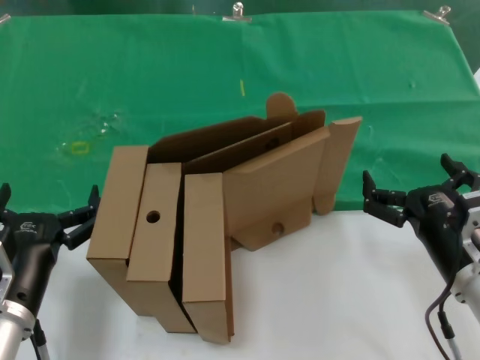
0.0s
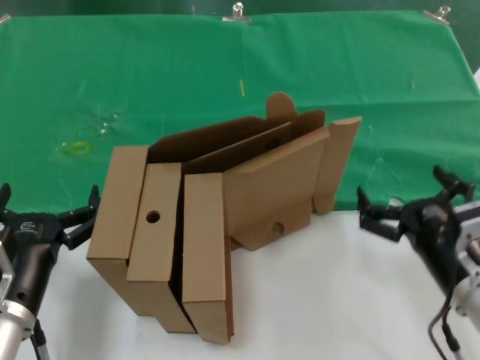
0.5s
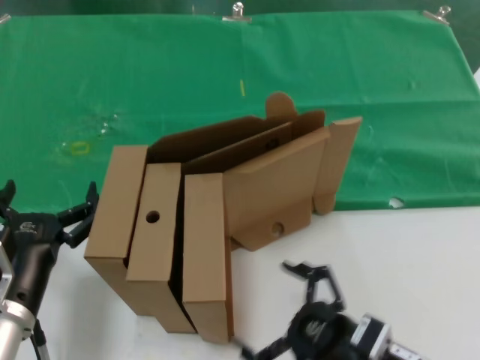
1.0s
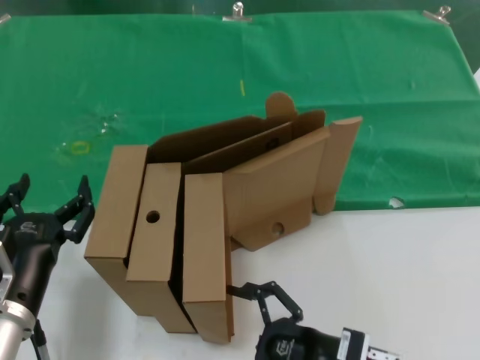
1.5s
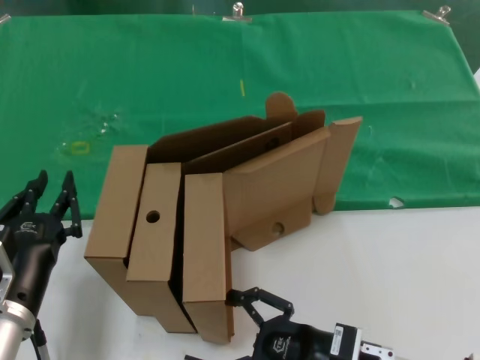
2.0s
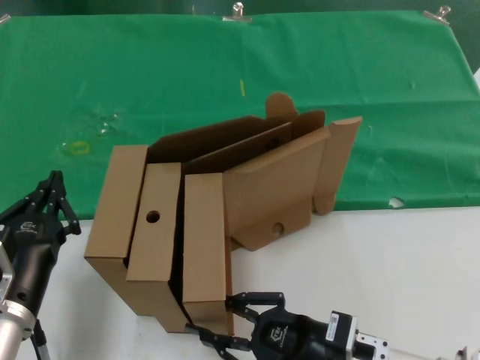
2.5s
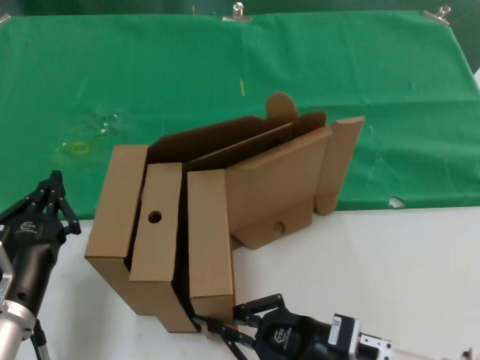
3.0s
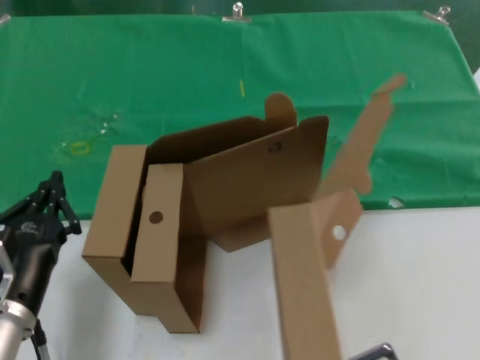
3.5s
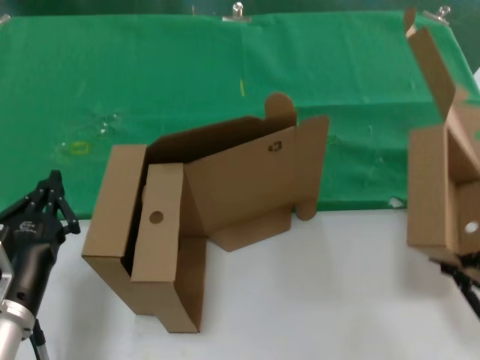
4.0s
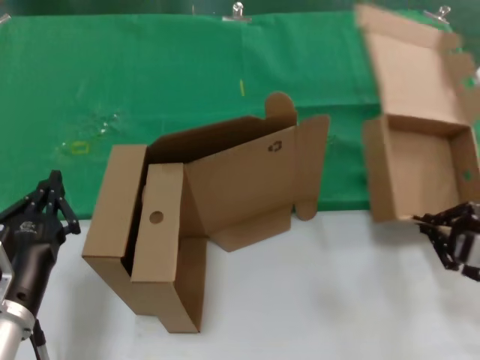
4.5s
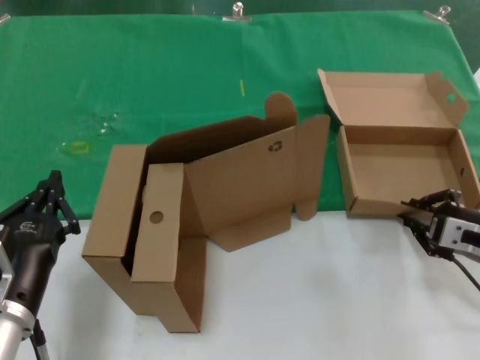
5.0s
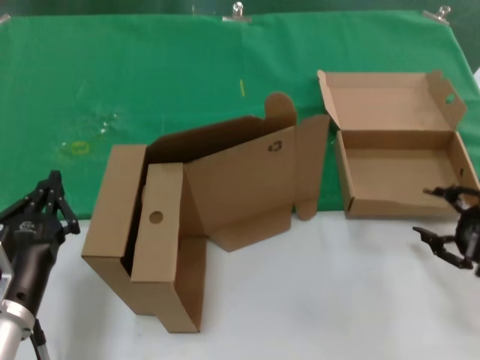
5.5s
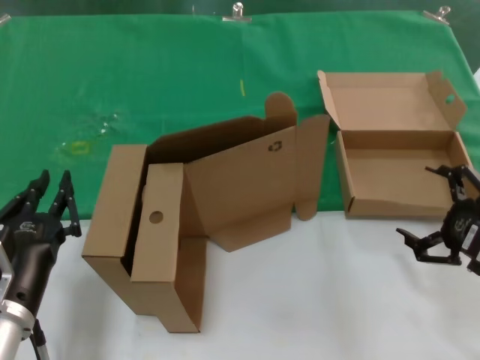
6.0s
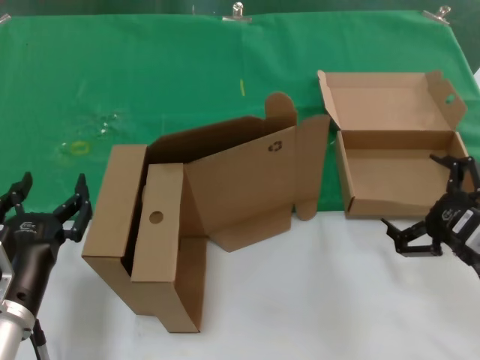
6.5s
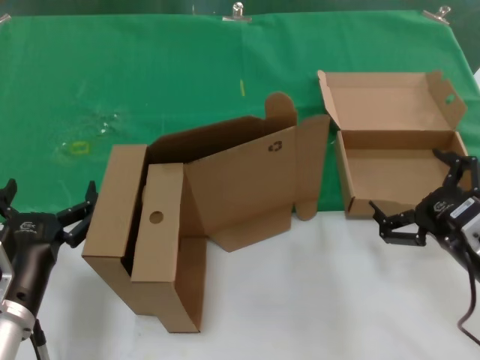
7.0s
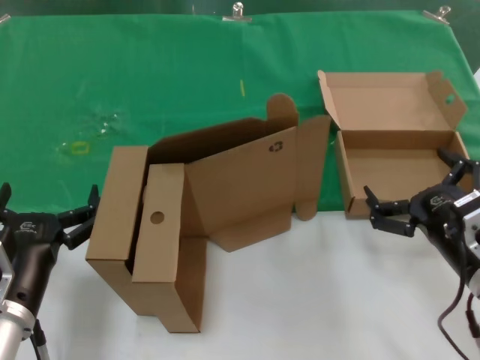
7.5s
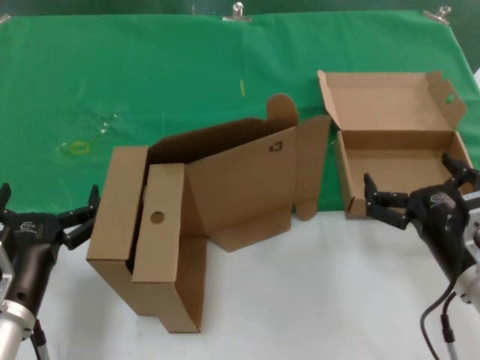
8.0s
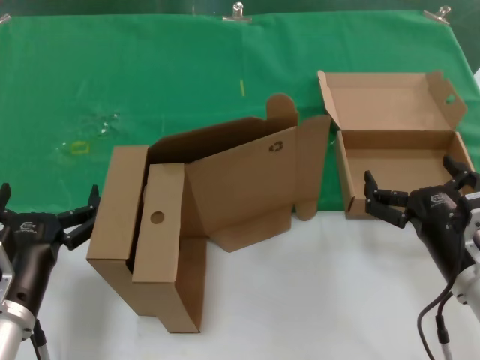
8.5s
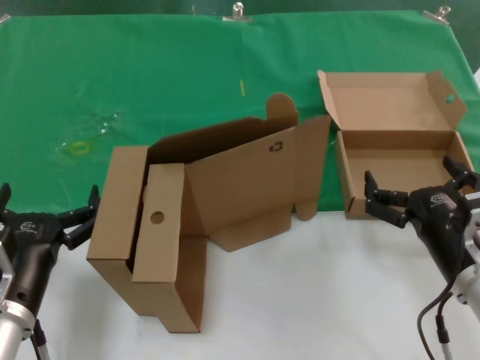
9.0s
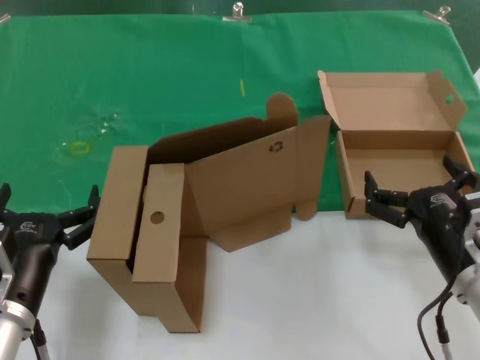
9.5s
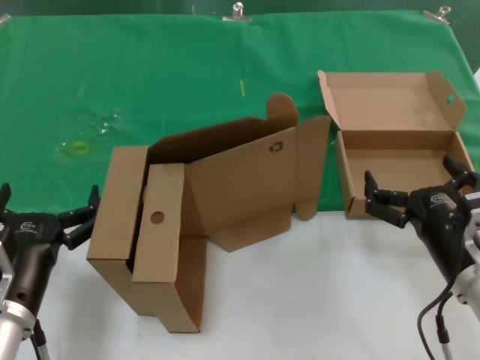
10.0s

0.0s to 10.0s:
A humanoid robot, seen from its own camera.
Task of the whole recording: pick up the paper box and put it at the back.
Step, 0.0s to 2.5s: Grasp the paper box.
Step, 3.0s to 5.0s: Place the paper box on the table.
0.0s to 2.0s: The right hand moves downward and to the left, about 10 cm.
2.0s to 4.0s: The right hand goes roughly 25 cm to the right and upward.
4.0s to 6.0s: The right hand moves forward, about 10 cm.
6.0s to 8.0s: The right hand shifts about 10 cm to the left.
8.0s to 10.0s: The two hands keep their place.
